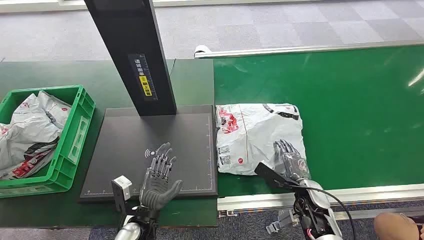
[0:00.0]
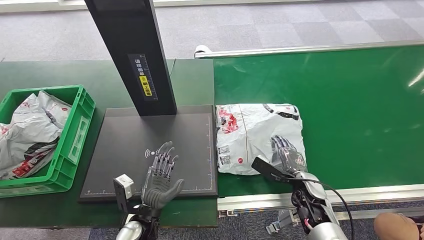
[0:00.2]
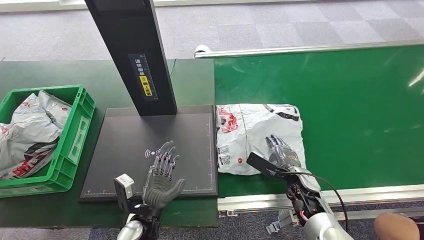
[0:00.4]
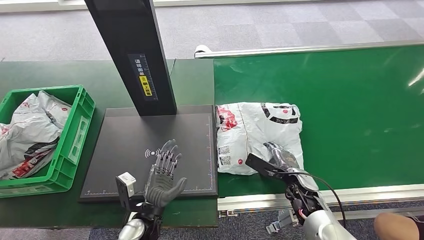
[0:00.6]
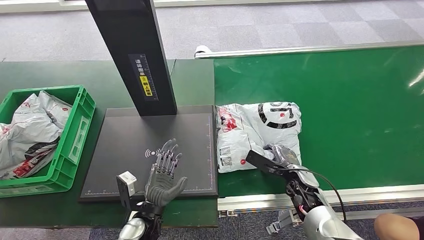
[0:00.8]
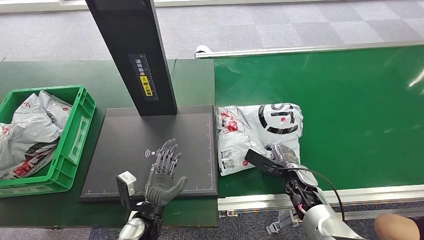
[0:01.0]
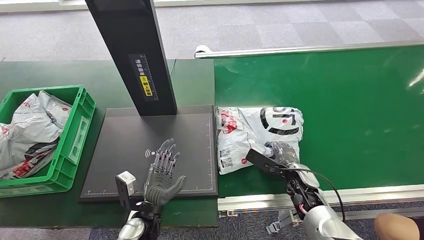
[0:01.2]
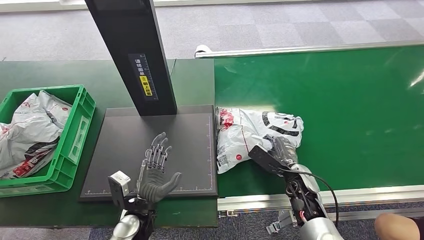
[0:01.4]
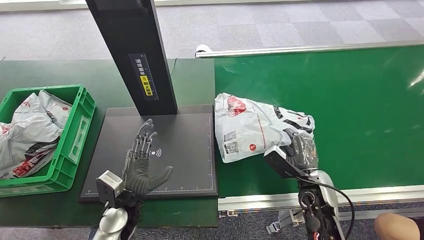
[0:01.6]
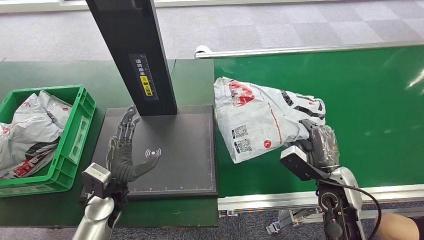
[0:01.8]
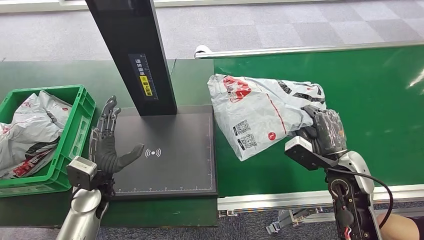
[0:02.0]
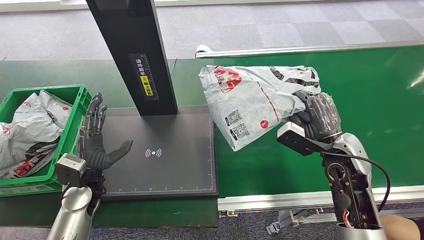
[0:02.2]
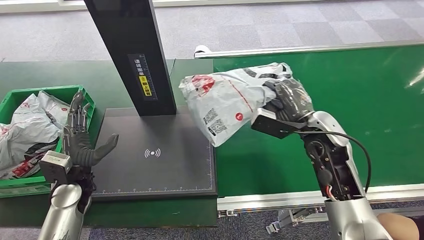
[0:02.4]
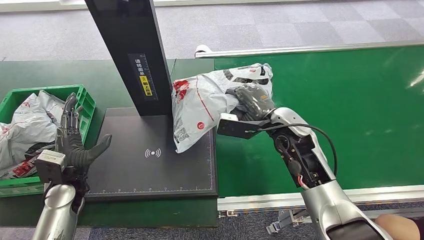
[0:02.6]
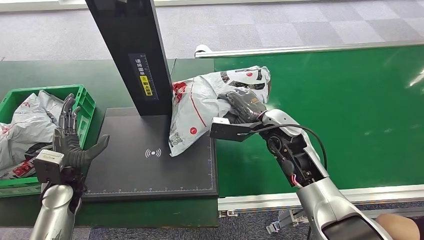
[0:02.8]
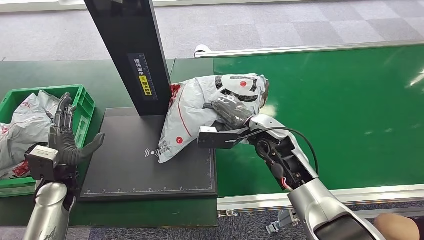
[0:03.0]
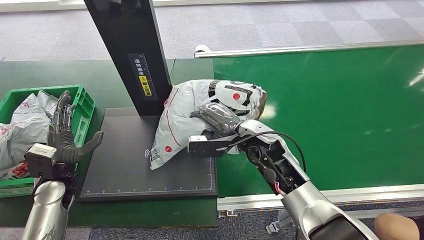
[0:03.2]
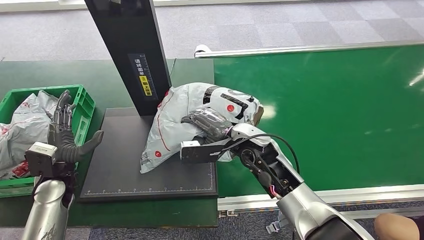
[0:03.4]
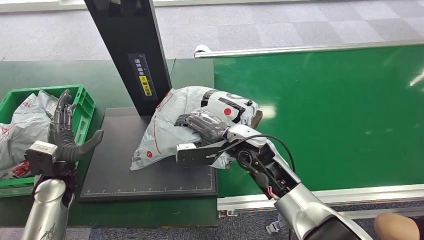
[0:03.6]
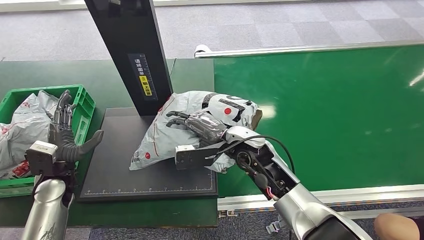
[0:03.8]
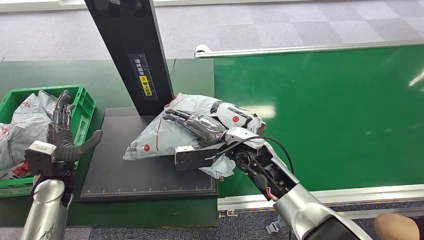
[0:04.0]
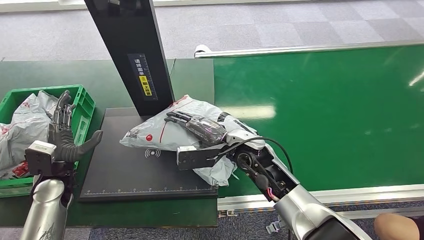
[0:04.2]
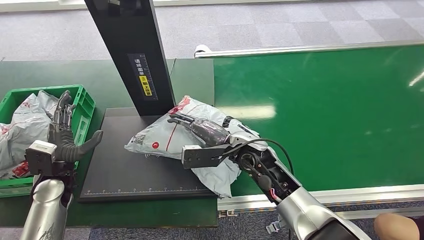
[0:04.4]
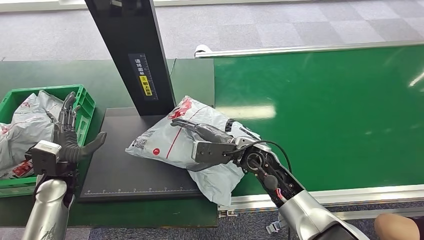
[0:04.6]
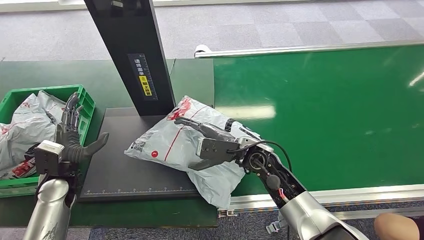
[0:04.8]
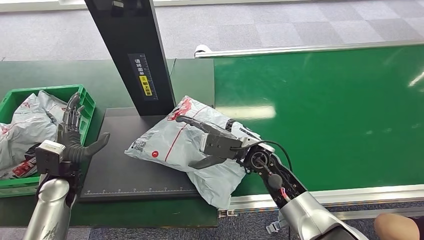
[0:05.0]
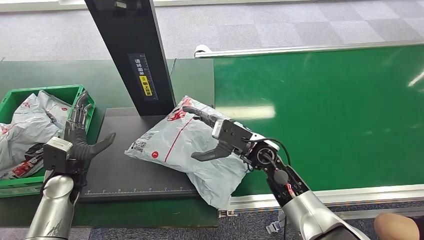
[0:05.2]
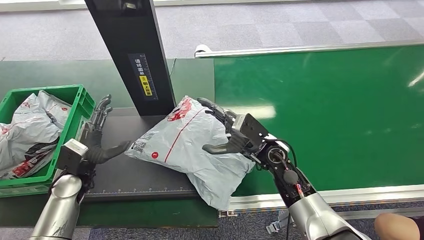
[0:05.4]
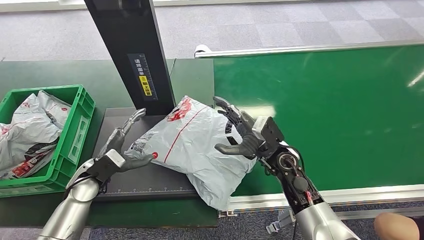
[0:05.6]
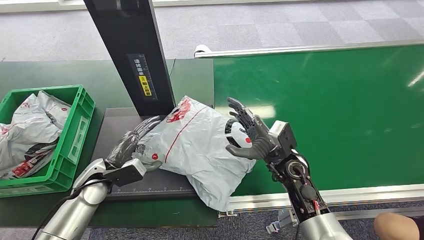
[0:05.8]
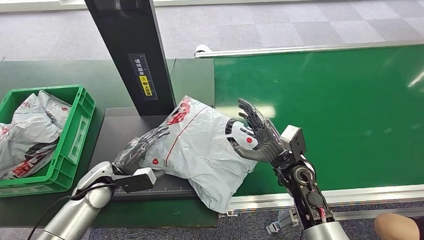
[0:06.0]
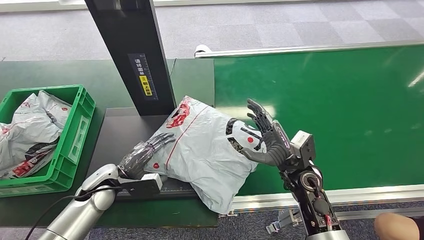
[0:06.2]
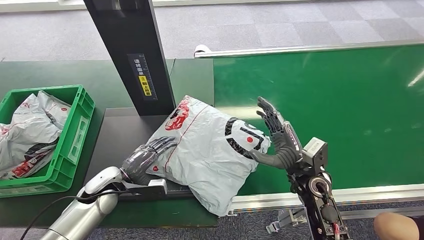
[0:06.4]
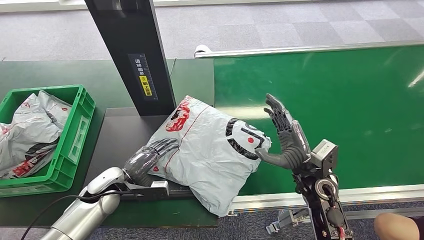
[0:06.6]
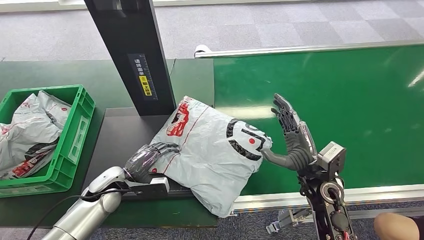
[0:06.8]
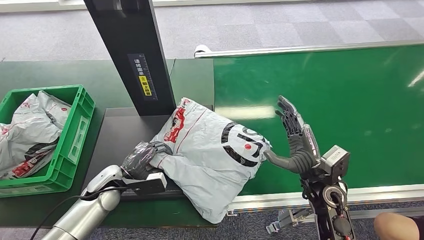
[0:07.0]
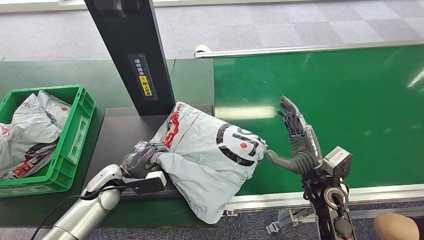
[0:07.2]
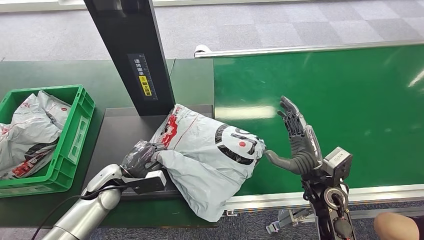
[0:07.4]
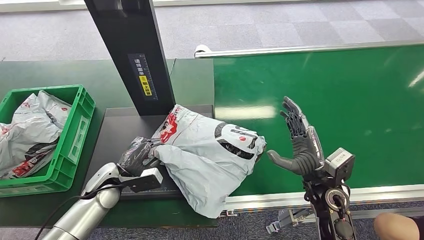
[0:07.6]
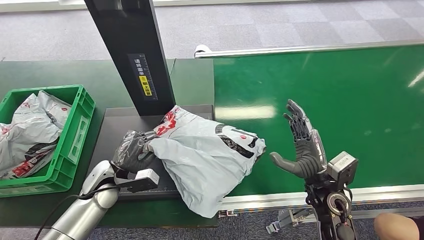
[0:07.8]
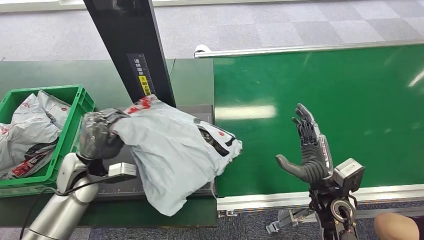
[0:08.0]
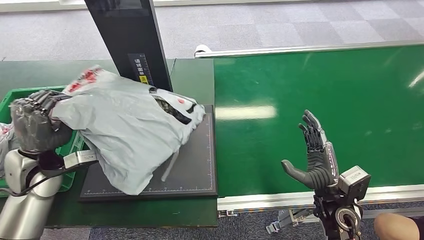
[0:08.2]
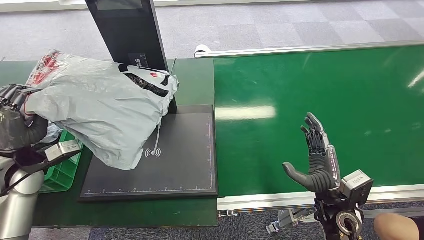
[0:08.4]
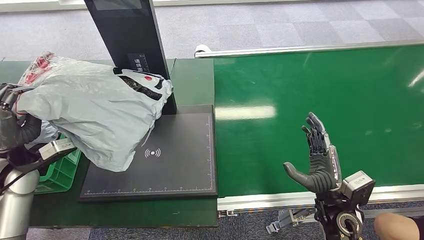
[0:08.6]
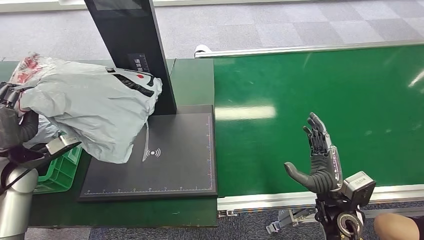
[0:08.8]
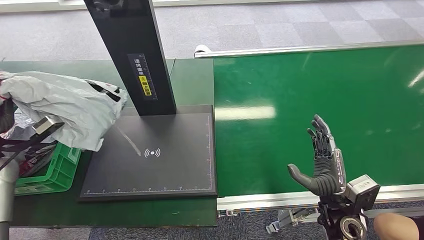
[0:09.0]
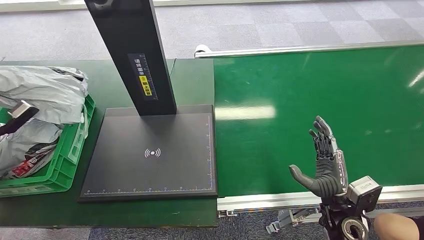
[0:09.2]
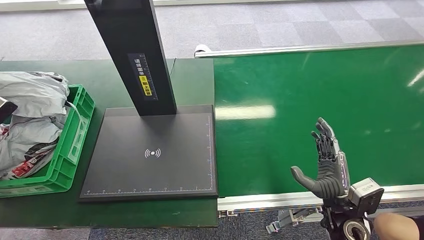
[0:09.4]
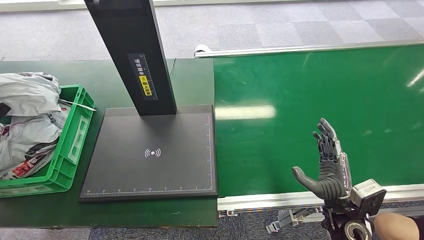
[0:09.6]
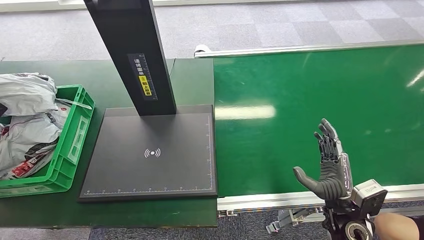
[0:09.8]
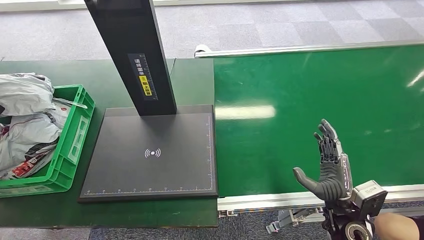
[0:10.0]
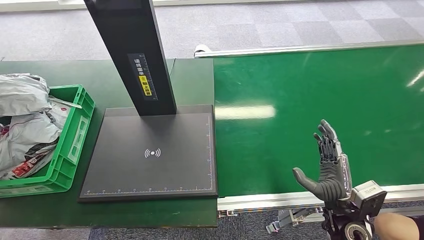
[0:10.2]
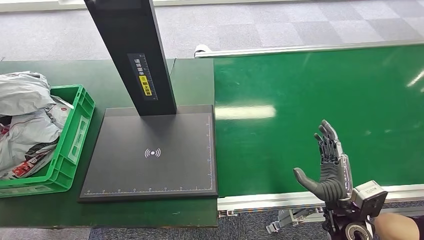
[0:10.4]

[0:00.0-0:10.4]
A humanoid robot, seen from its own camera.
Step, 0:00.0 to 0:02.0: Pick up the package from the conveyor belt.
Step, 0:02.2 to 0:05.8: Place the package onto the inbound machine.
Step, 0:06.2 to 0:08.4: Pick up the package from the inbound machine.
0:03.0 to 0:04.4: The right hand ends up about 5 cm from where it was.
0:06.0 to 0:07.4: The right hand shifts some 5 cm to the right.
0:09.0 to 0:10.4: The left hand is displaced to the left by some 15 cm.

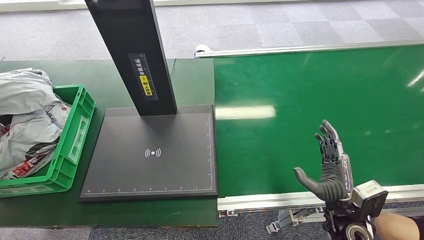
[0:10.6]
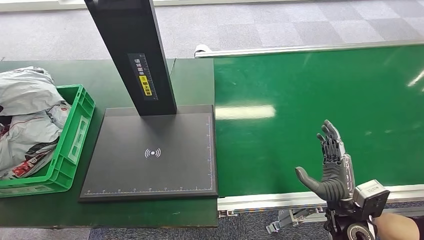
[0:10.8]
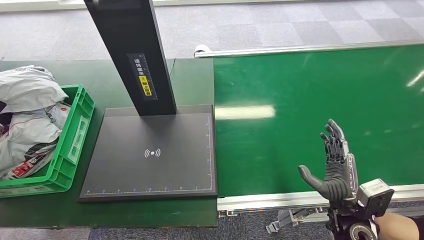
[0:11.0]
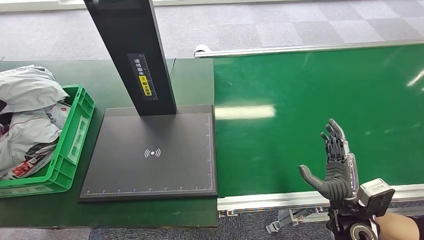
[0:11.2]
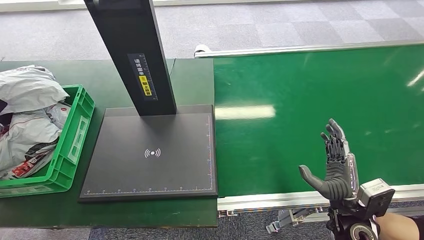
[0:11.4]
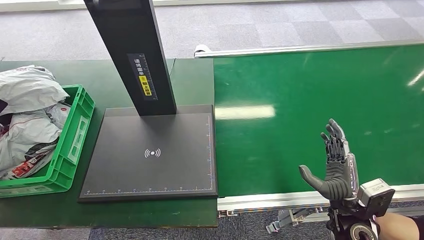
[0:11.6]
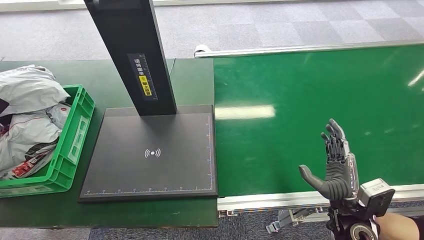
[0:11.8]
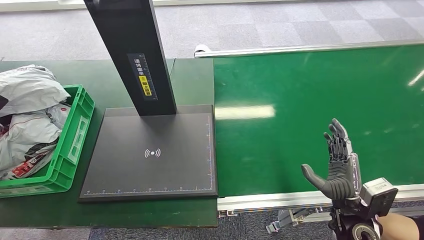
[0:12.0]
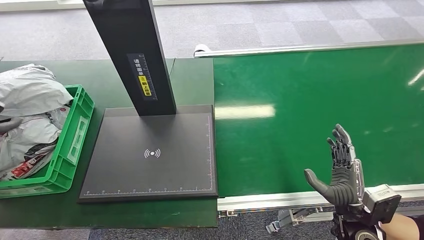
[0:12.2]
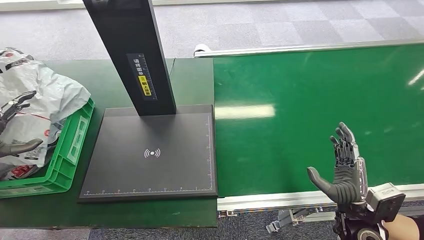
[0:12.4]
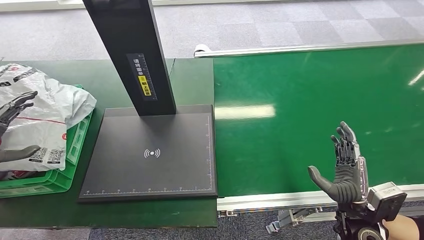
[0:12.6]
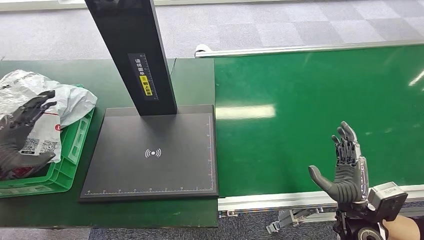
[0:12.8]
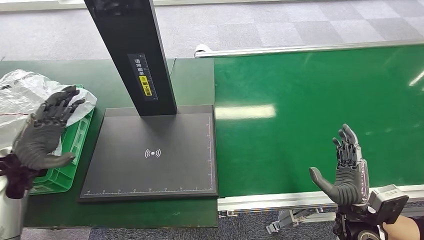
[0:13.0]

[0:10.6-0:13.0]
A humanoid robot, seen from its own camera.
Step, 0:10.6 to 0:13.0: Place the package into the parcel locker.
0:10.6 to 0:11.8: The hands stay close to where they were, moving slightly.
0:11.8 to 0:13.0: The left hand moves to the right, about 20 cm.
